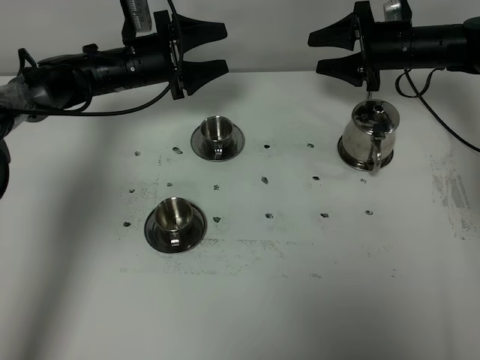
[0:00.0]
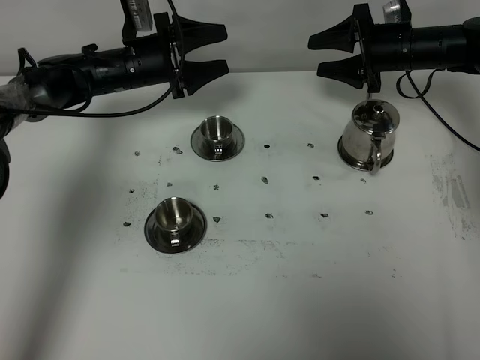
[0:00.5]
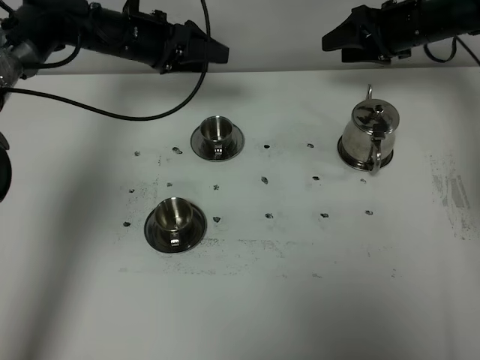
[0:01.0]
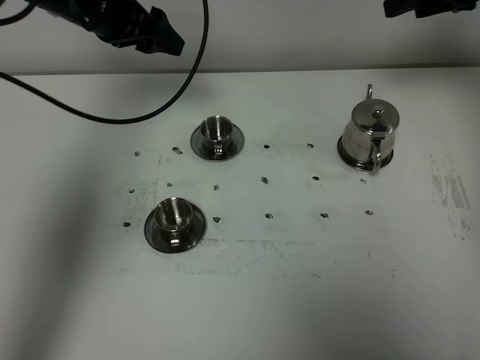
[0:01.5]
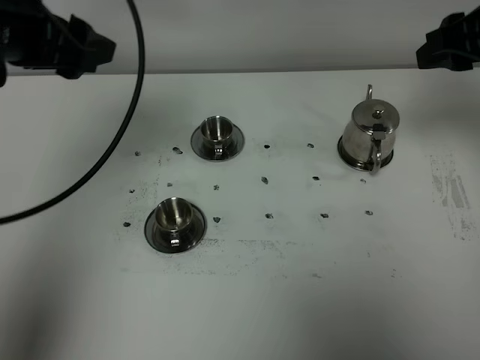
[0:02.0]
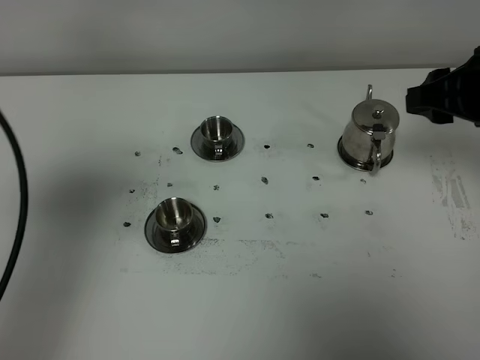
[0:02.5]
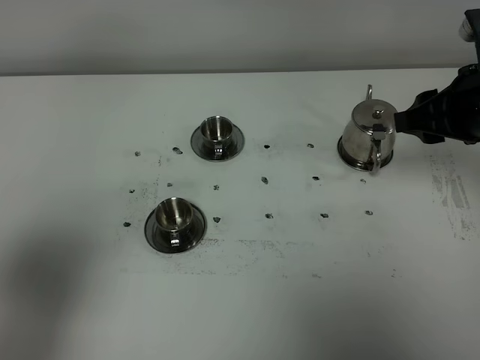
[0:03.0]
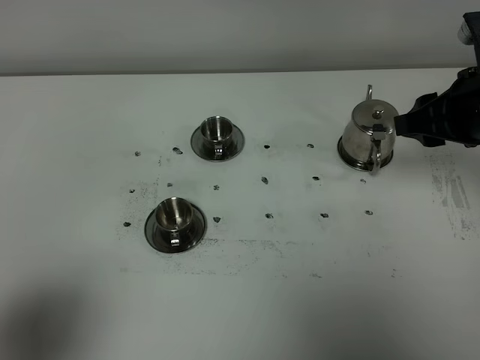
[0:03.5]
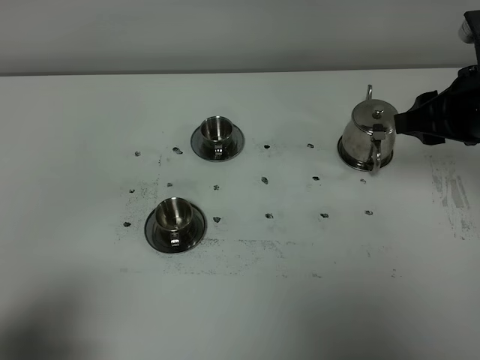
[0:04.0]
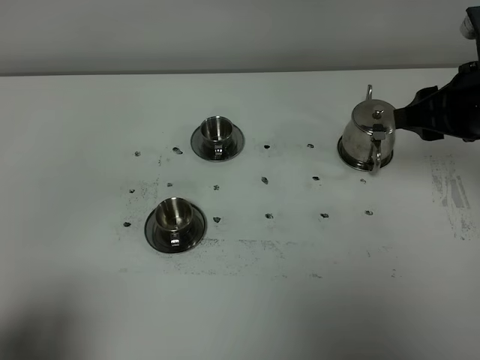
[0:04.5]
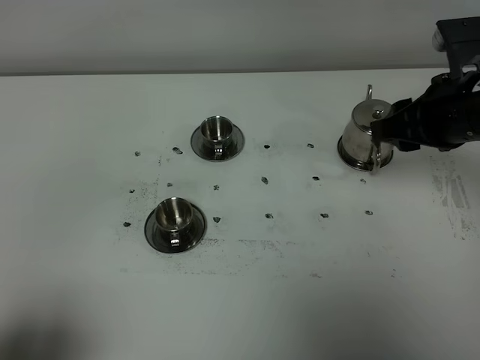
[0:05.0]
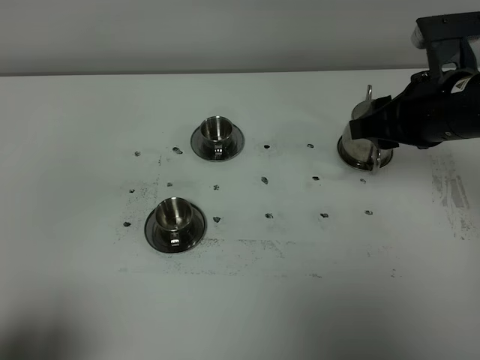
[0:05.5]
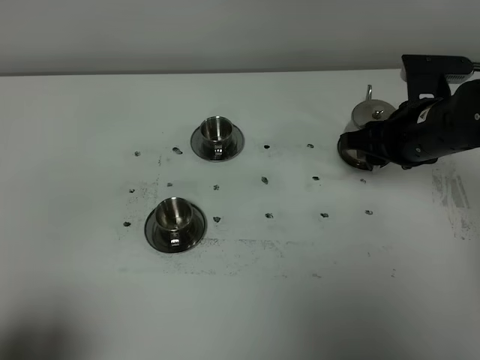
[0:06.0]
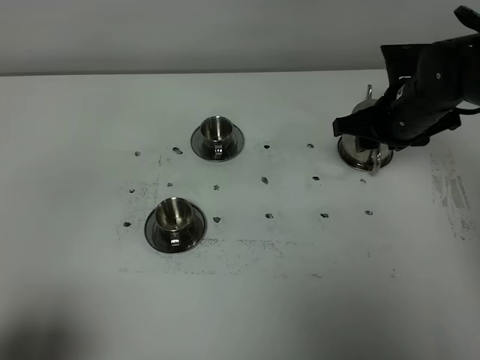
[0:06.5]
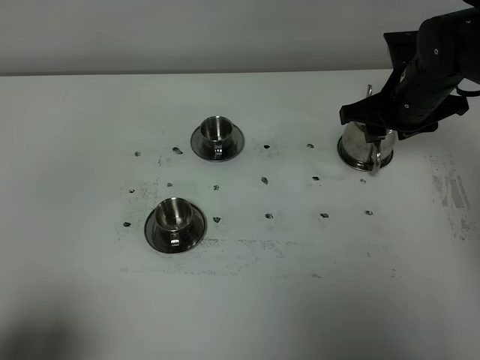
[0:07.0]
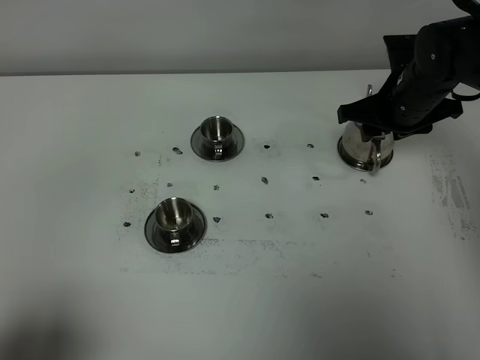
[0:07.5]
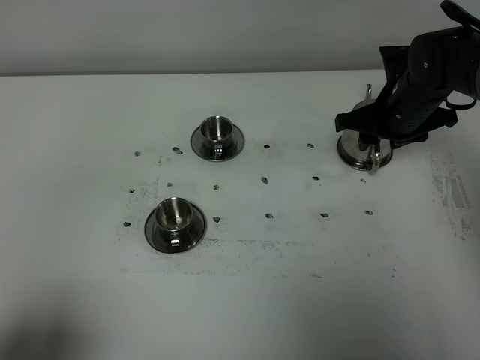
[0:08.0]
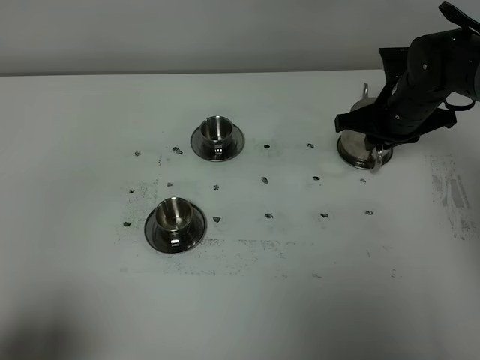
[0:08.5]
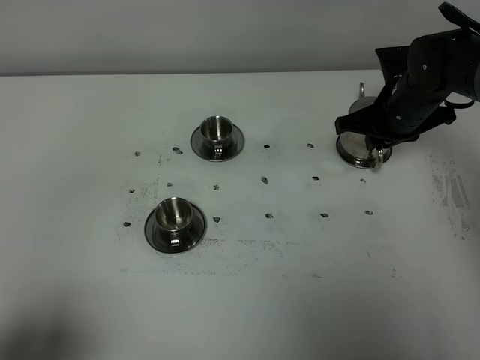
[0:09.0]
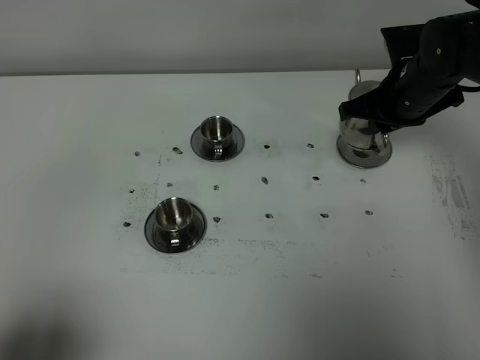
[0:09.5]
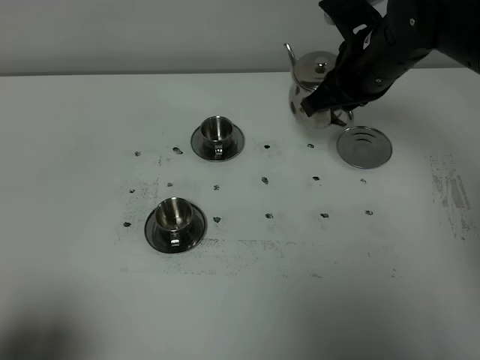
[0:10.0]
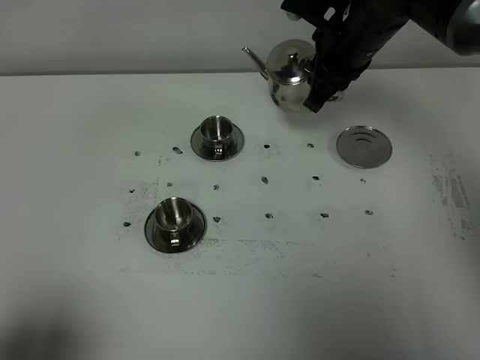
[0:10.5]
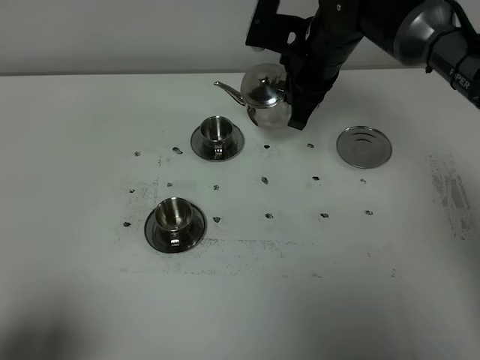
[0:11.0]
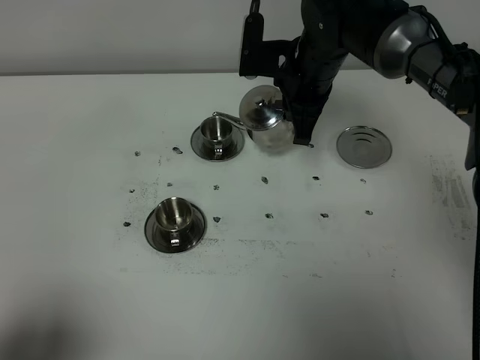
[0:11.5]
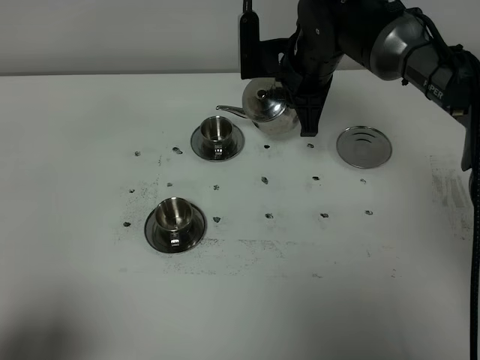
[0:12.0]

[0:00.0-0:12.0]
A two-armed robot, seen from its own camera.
Task of the whole recording: grasp the stainless steel teapot and pour the tea into the two stainless steel teacups one by one, put the stainless steel teapot back in its original place.
Step, 0:00.0 to 0:09.0: Pick up the teapot with the right gripper.
0:00.0 to 0:02.0: The left gripper goes approximately 30 cm upward and backward; the right gripper is displaced backward and upward by roughly 25 cm.
0:02.0 to 0:04.0: The left gripper moves backward, some 30 cm; the right gripper is displaced downward by roughly 5 cm.
0:04.0 to 0:06.0: The right gripper goes some 10 cm downward.
0:06.0 to 0:08.0: The right gripper shifts about 10 cm forward.
0:08.0 to 0:10.0: The right gripper shifts roughly 10 cm upward and to the left, and closes its fingers.
0:10.0 to 0:12.0: The right gripper heads to the left, covering roughly 5 cm.

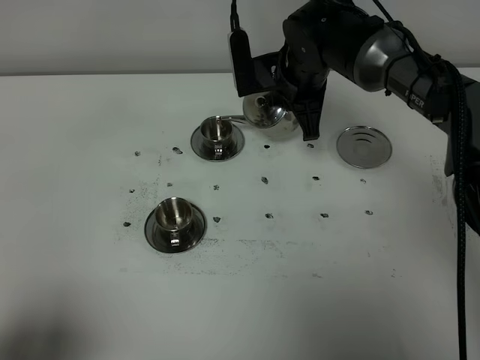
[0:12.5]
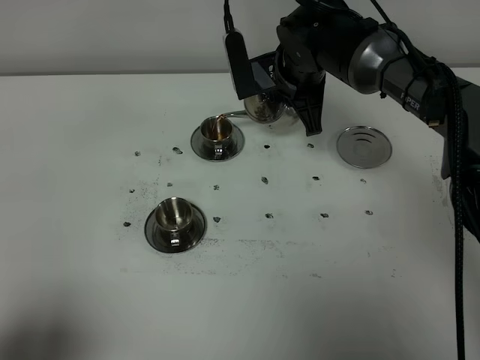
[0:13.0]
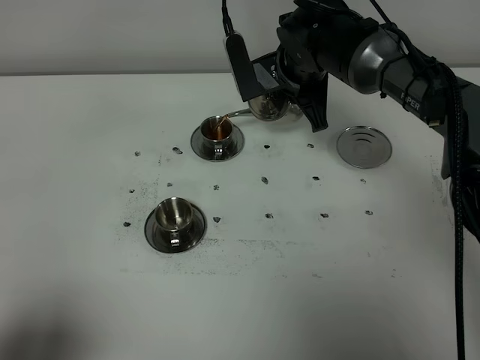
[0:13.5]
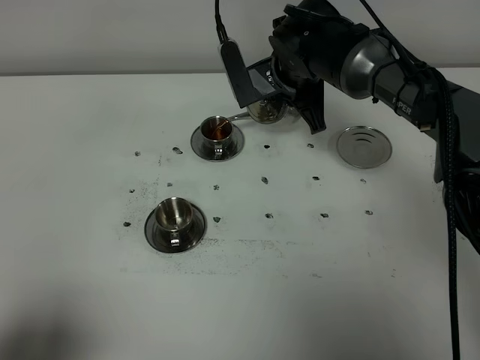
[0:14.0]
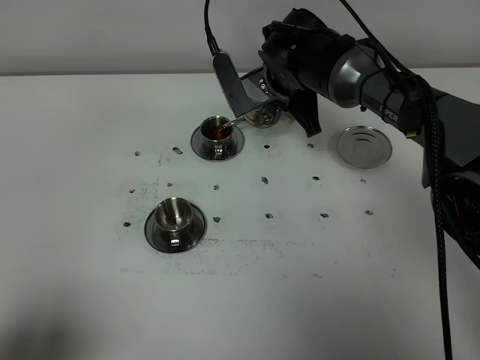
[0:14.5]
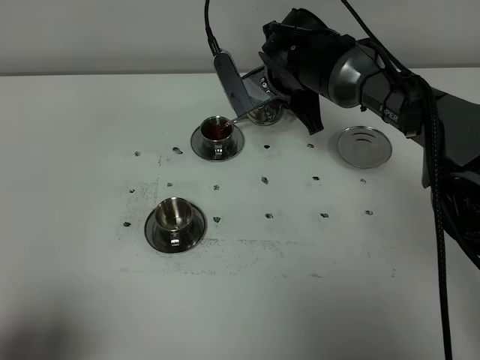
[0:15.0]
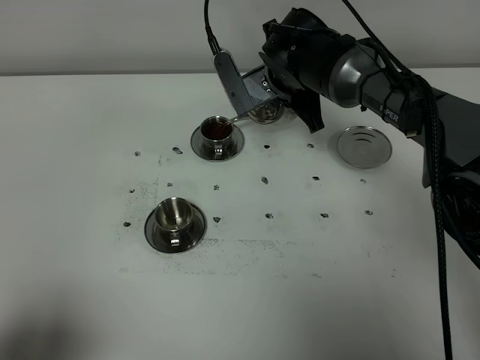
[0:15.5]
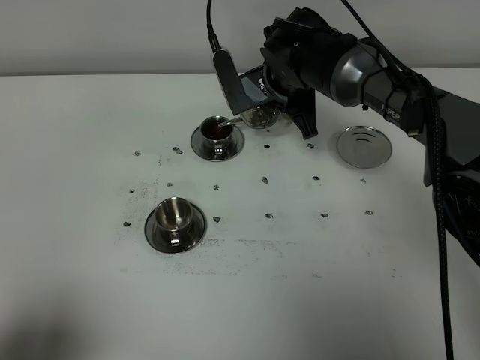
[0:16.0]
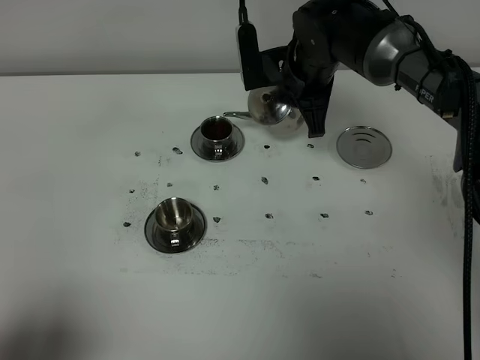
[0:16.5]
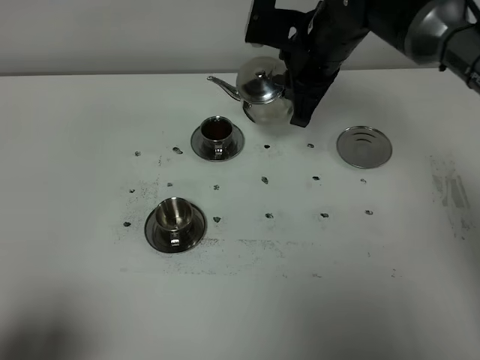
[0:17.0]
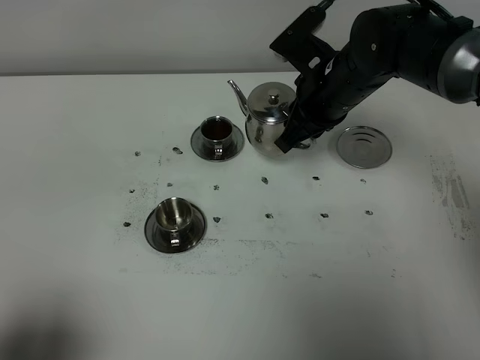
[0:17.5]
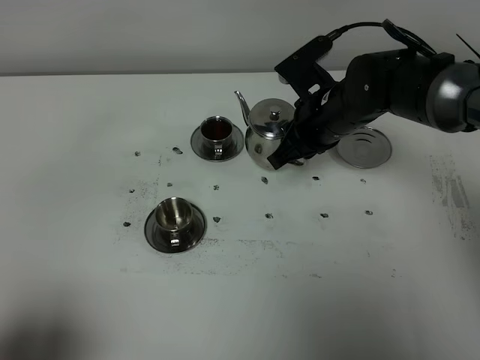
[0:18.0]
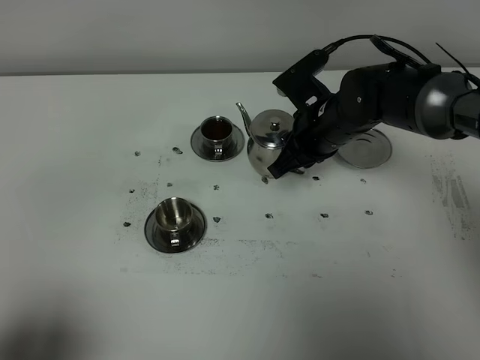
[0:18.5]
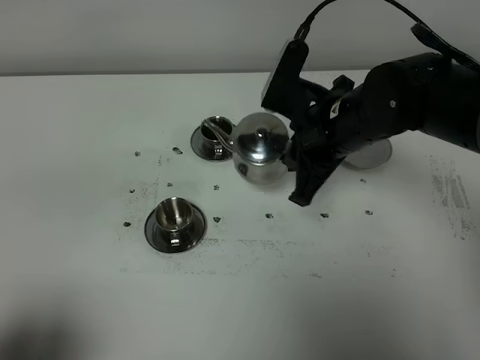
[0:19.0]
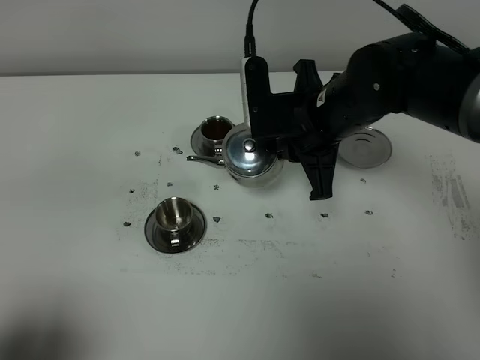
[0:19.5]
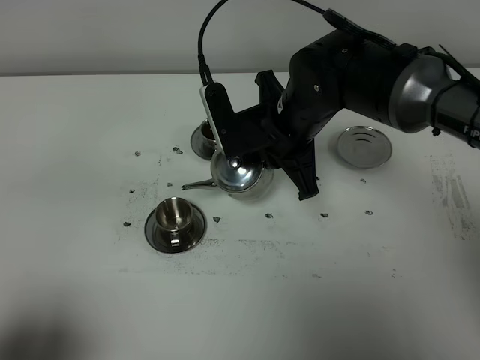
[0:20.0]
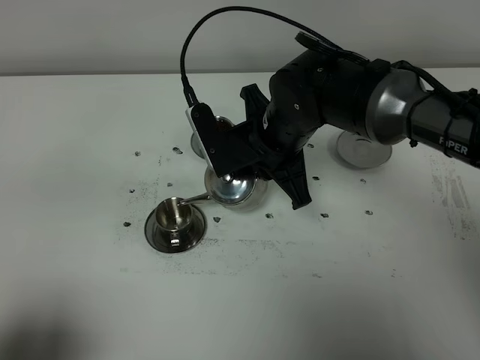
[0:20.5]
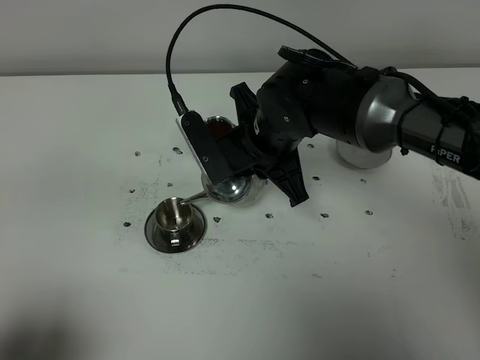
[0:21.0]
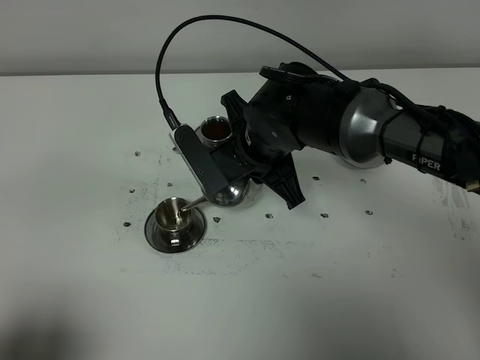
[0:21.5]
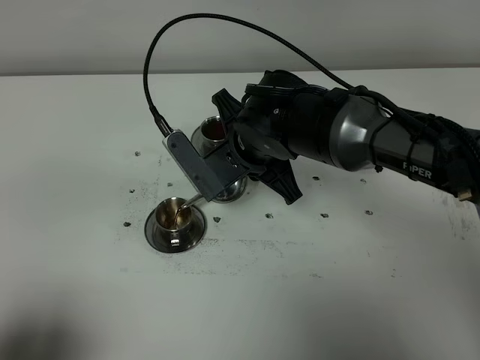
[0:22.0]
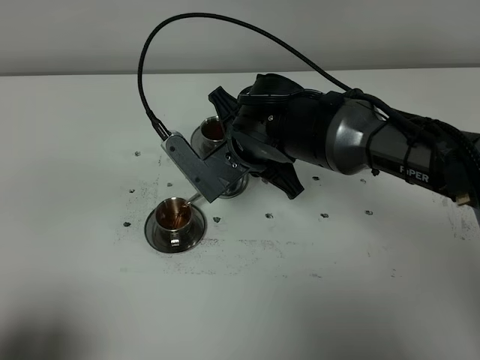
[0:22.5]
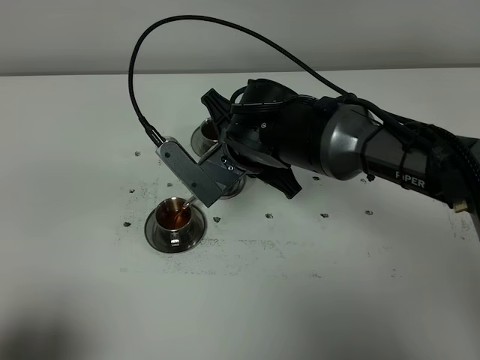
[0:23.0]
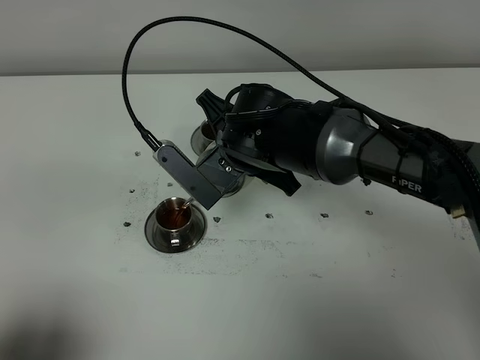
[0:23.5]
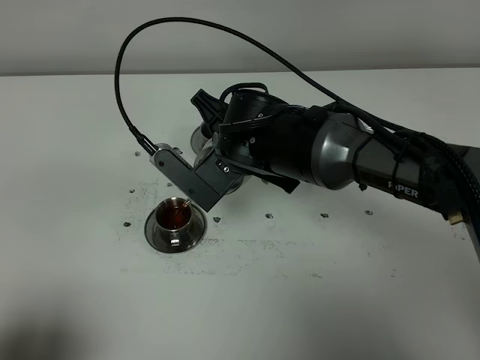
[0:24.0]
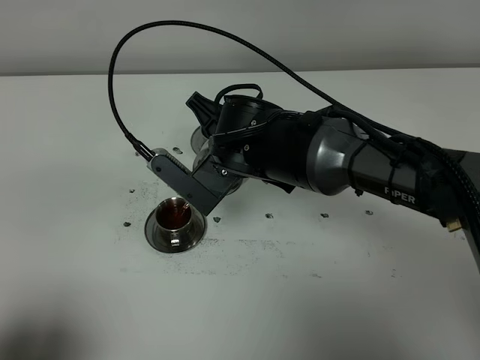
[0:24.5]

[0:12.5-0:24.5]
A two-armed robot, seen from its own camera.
Task of the whole recording: grasp the stainless steel teapot and pour the tea into the two stainless steel teacups one by one, put the stainless steel teapot back in its original place.
Step, 0:12.5 to 0:16.0: Pour tea into the teacup with the right gripper.
0:12.5 to 0:14.5: The grippers stay close to where they were, moving slightly.
0:16.5 to 0:18.5: The right gripper travels backward by roughly 5 cm.
0:18.5 to 0:20.5: The right gripper goes roughly 5 cm to the left.
0:22.5 to 0:24.5: The grippers stay close to where they were, moving slightly.

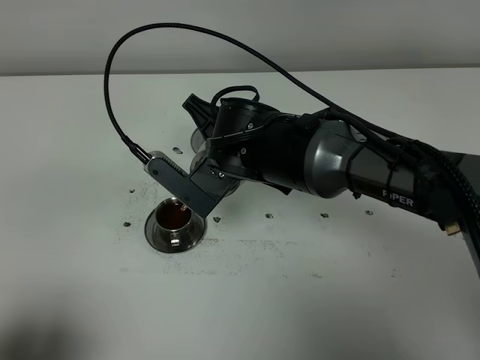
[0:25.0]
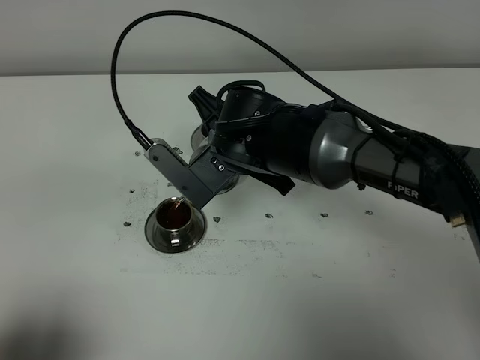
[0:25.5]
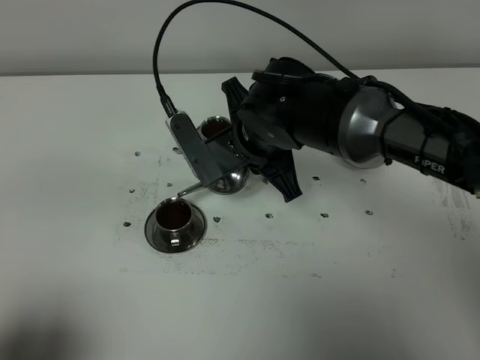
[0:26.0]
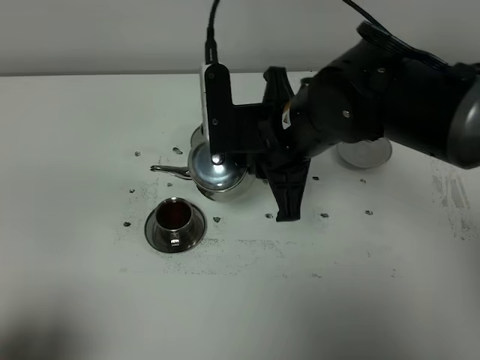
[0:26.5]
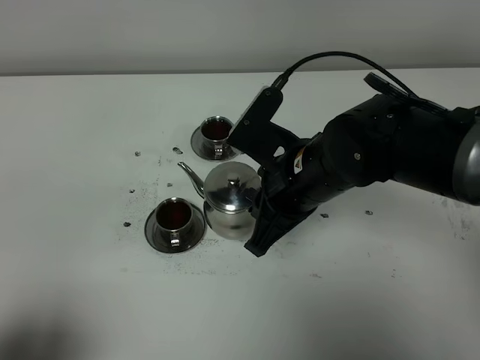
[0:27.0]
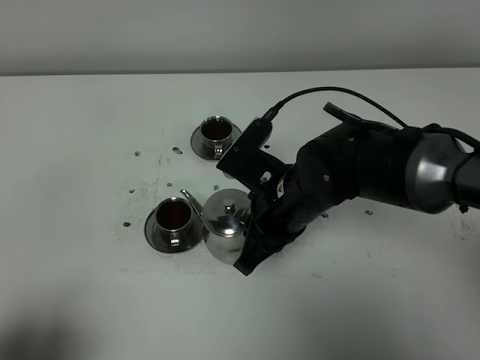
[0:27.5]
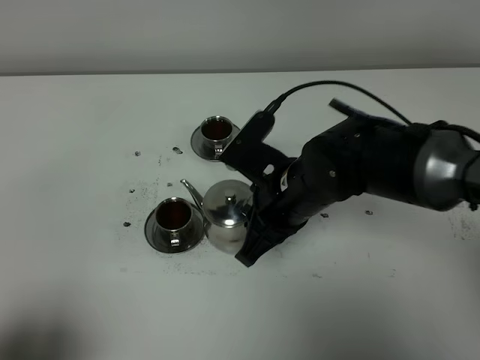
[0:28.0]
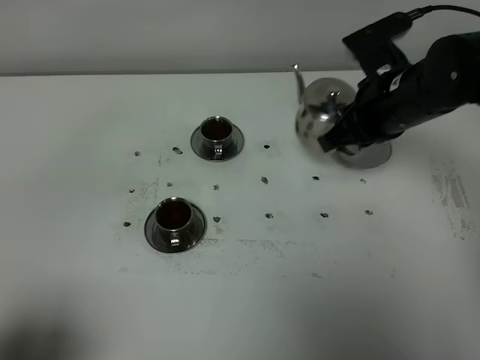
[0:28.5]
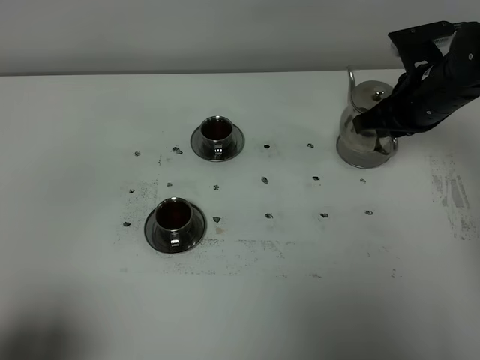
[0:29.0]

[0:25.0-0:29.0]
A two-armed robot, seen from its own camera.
Task of the whole recording: grasp the stainless steel teapot and pour the tea into the two stainless steel teacups one by one, put the stainless steel teapot back in its original place.
0:25.0 to 0:27.0: The right gripper shifts about 10 cm to the right.
0:27.0 to 0:29.0: The right gripper goes approximately 20 cm to the right and forward.
